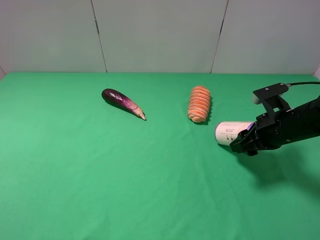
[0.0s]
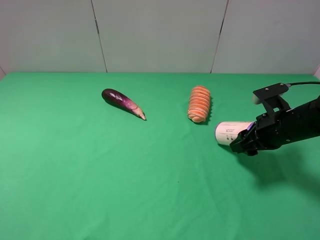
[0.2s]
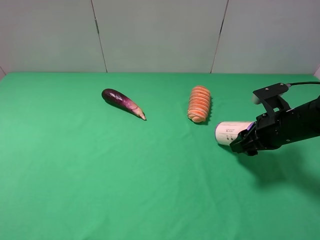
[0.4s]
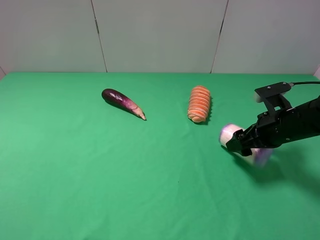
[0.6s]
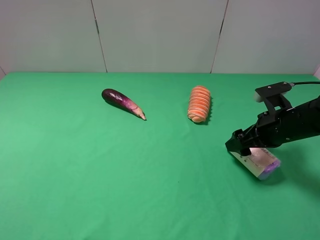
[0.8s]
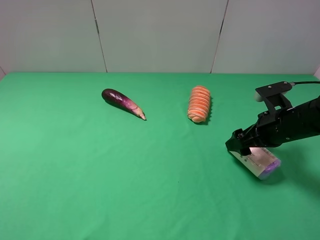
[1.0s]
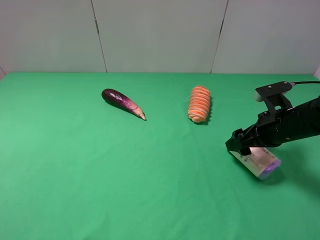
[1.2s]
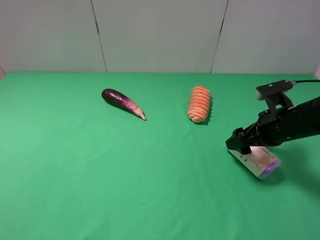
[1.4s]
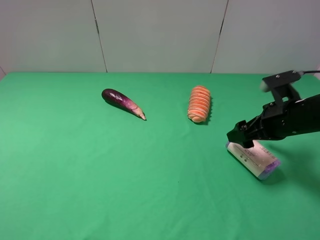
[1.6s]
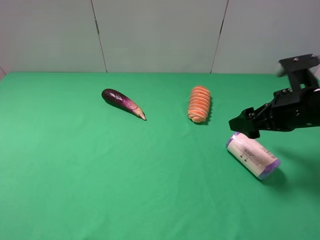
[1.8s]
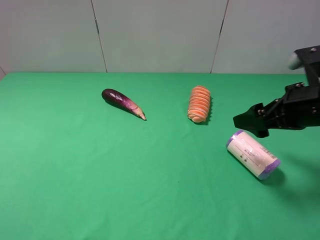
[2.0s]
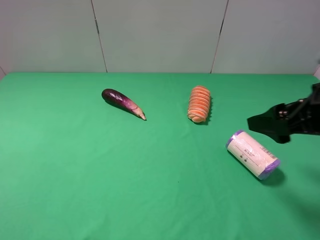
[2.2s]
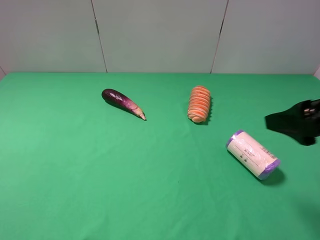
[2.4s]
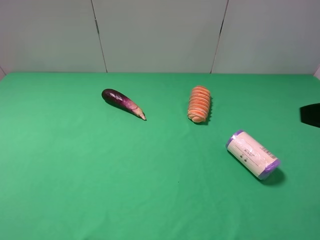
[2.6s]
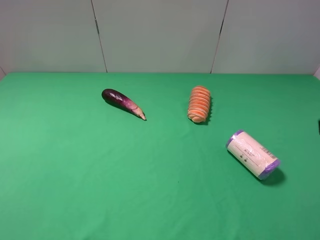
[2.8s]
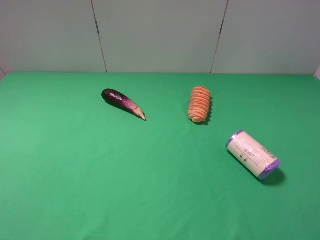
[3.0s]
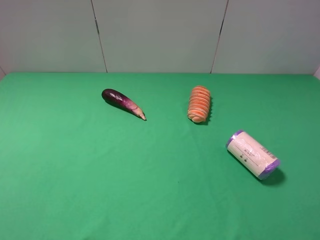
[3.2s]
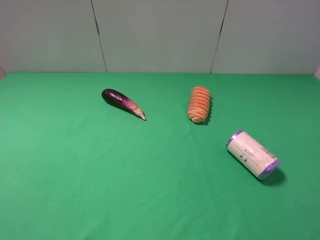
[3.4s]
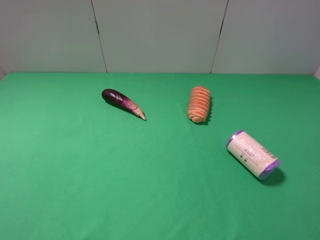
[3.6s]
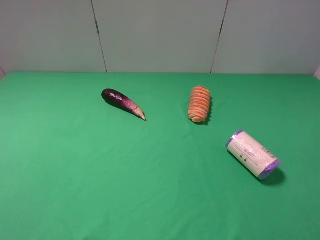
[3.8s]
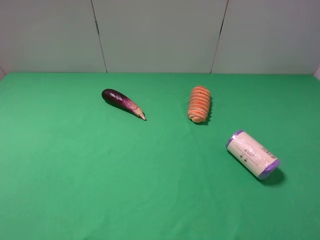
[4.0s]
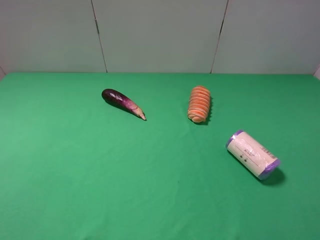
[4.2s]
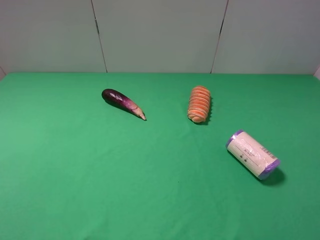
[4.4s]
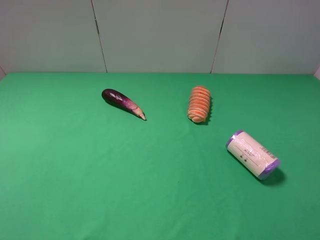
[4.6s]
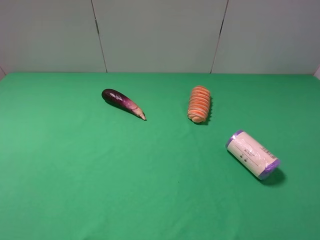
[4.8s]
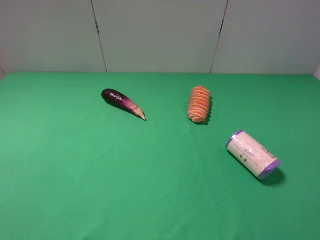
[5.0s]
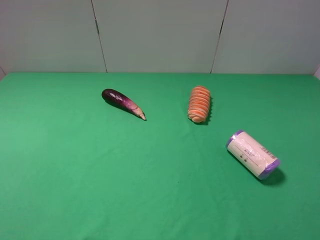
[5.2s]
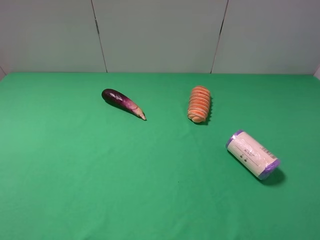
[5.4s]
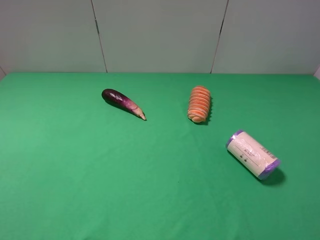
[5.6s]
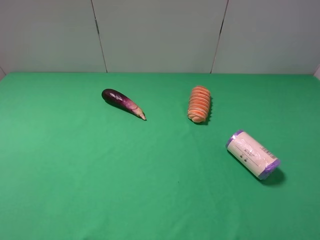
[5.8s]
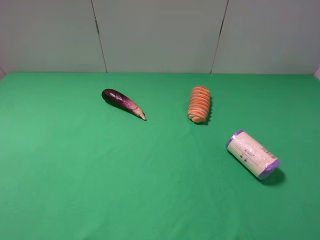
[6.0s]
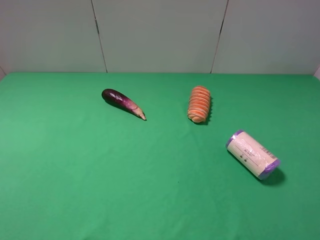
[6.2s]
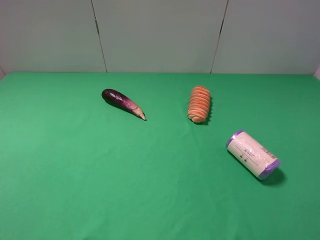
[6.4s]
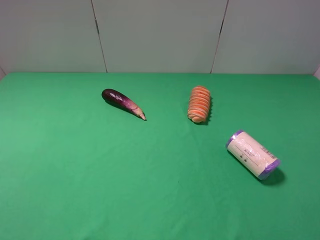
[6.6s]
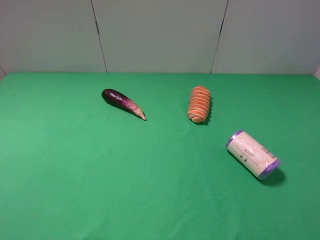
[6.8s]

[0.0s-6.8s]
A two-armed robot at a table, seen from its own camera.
Task of the whole recording: use the left gripper to pick up the item and transfer it from the left gripper to the right gripper.
Step, 0.0s to 2.2s: The right gripper places purple garbage bag on the right side of the table.
0.0s to 1.4s: The right gripper opens.
1.4s to 2.8s: The right gripper shifts approximately 25 cm backward and upward.
5.4s to 6.8s: Neither gripper changes place.

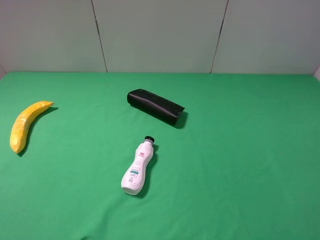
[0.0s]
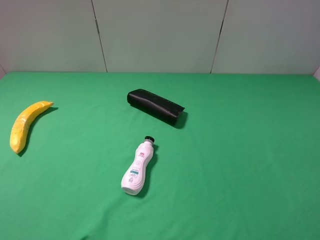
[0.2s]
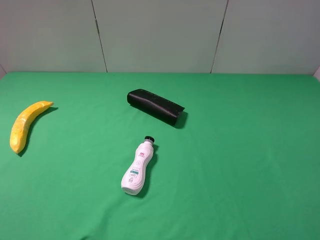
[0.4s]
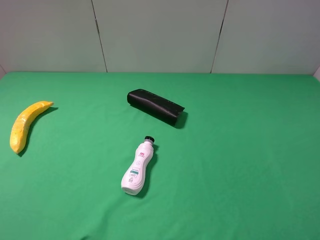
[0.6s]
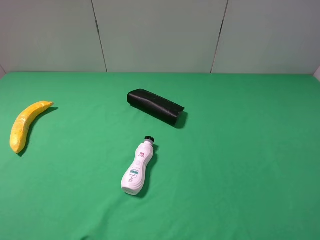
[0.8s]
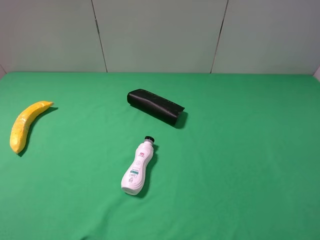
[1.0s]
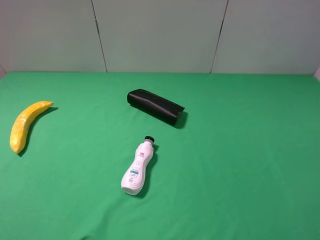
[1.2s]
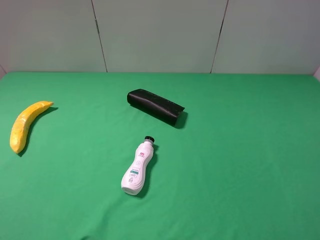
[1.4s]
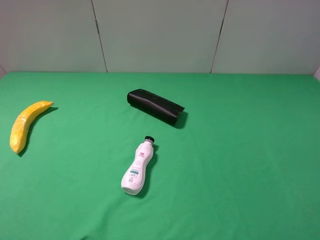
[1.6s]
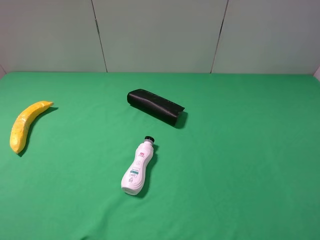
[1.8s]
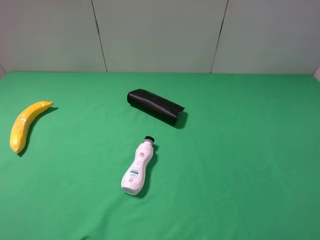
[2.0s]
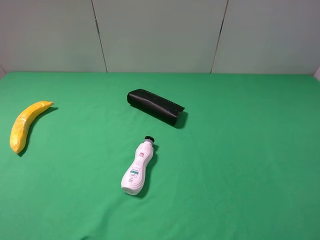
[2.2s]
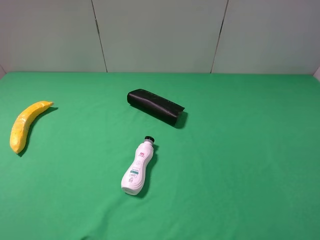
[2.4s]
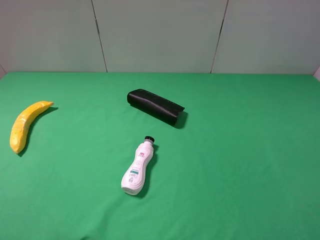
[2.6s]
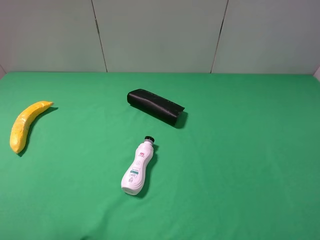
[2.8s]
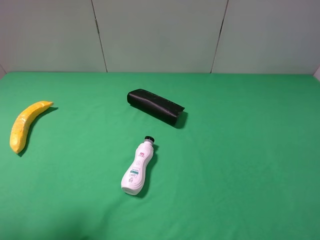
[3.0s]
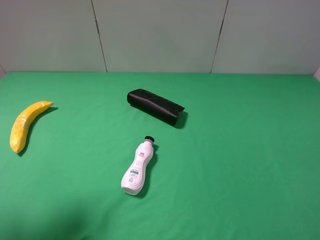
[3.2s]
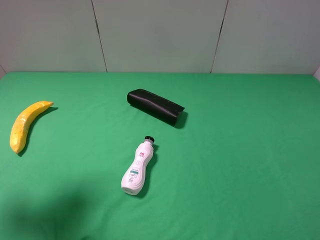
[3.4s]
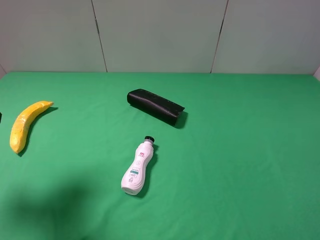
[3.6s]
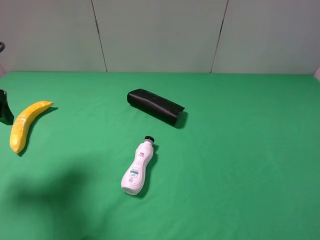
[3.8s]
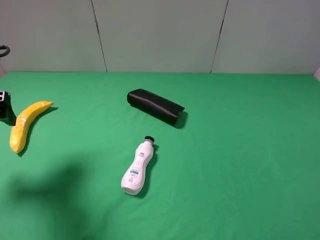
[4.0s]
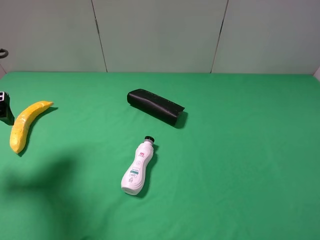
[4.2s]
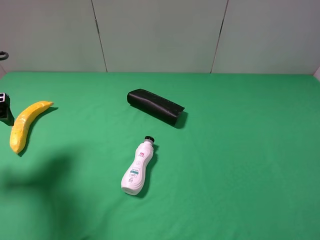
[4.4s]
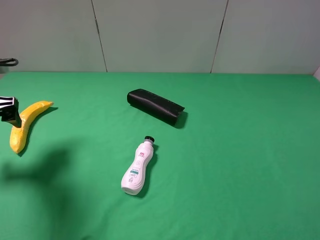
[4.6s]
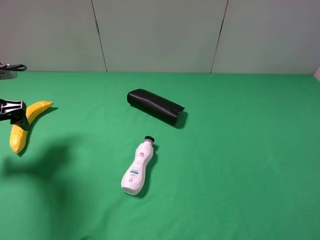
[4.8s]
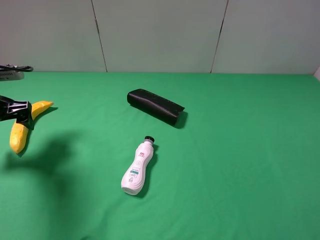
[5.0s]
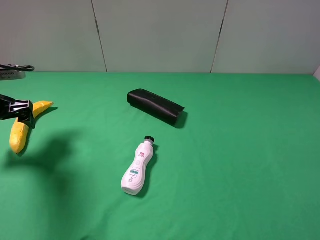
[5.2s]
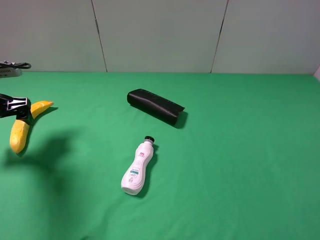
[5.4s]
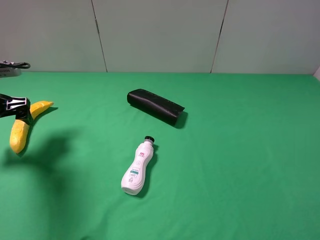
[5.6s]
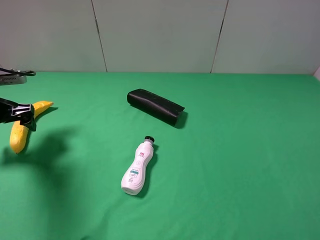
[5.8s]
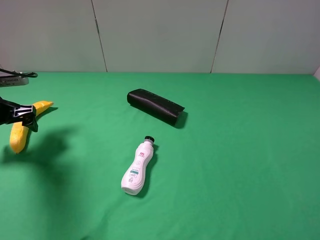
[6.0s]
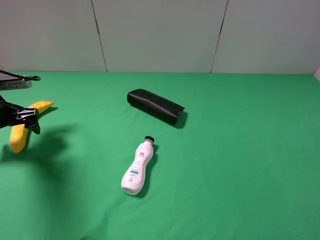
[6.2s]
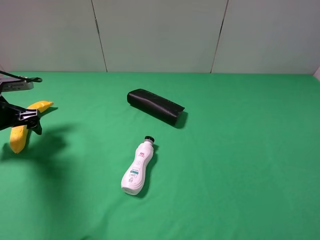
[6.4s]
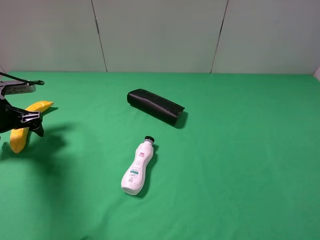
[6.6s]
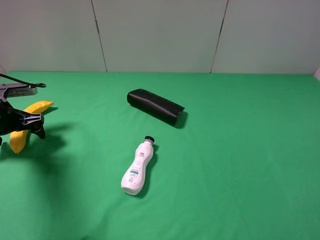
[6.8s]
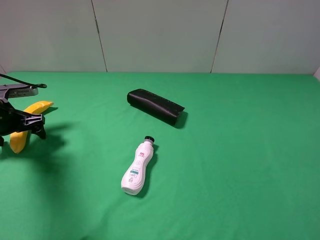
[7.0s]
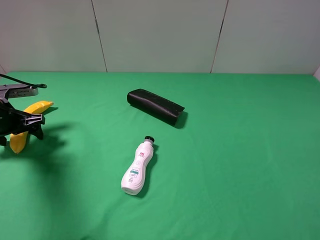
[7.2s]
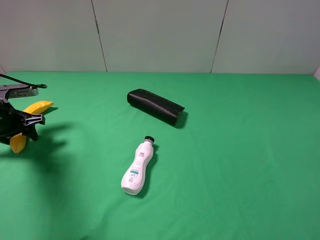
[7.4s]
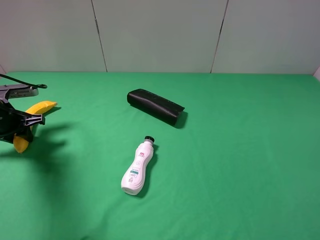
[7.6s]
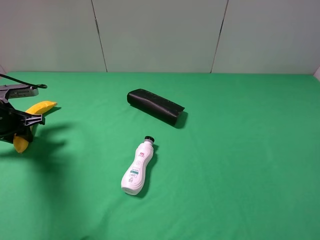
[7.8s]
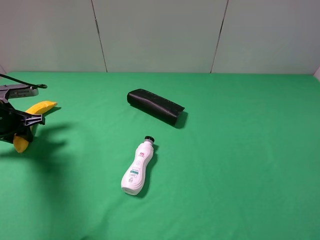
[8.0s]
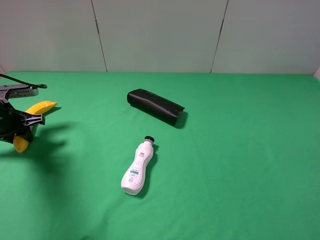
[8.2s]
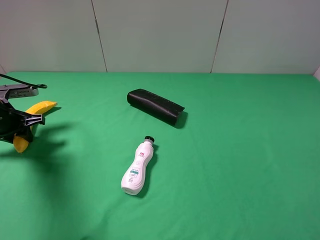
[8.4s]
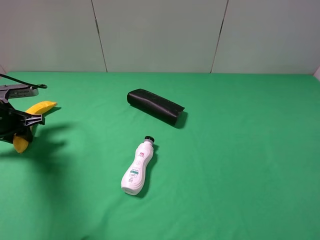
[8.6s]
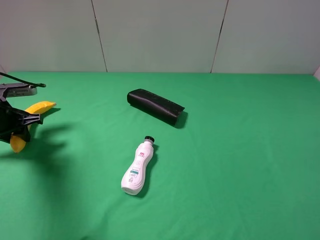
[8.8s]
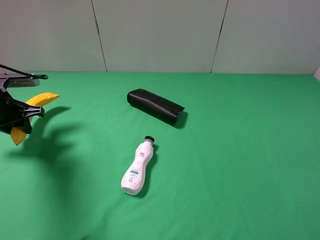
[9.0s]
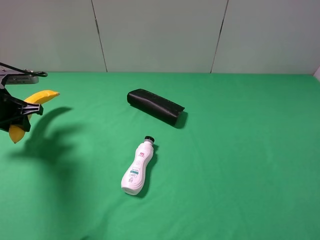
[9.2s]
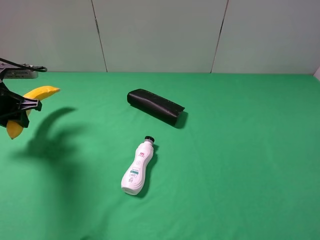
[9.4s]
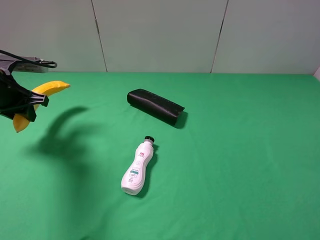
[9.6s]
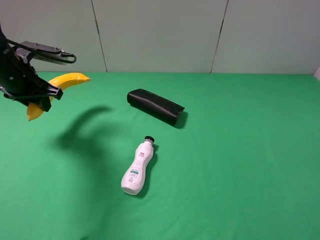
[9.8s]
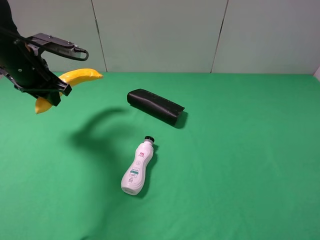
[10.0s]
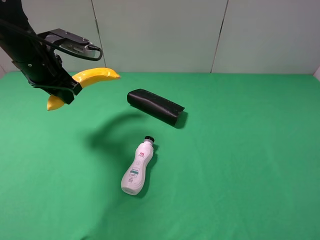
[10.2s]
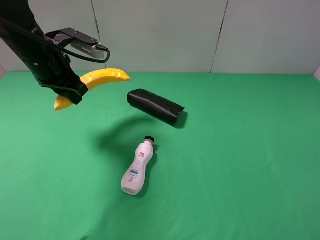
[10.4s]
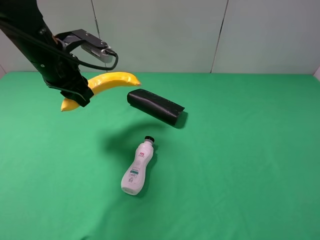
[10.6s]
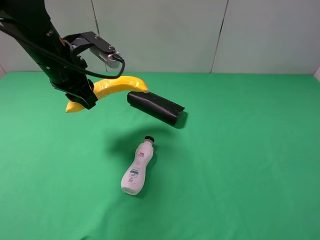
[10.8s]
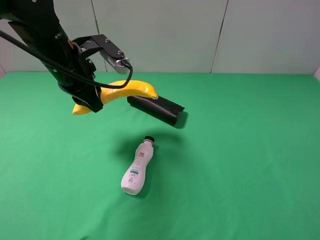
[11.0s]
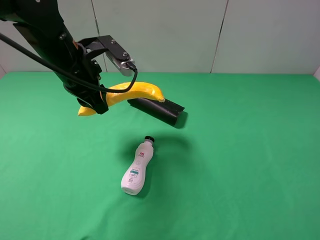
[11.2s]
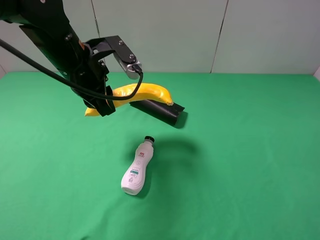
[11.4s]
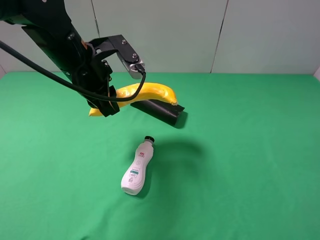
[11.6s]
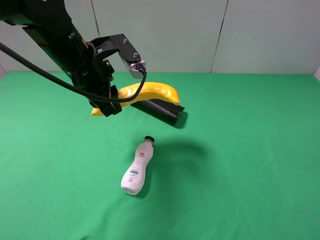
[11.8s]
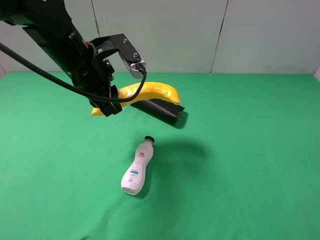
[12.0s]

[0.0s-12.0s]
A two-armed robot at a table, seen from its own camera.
Task of the whole recording: use the left gripper to pick up the item and transfer it from the left gripper to the right gripper.
Step, 0.0s to 8.4s: Use the left gripper to grab the banana on the left side of the table.
0.0s to 1.6s: Both grippers stay about where they are.
1.6s to 3.0s: The left gripper goes about 10 cm forward.
3.0s to 4.4s: The left gripper goes about 15 cm forward and downward.
4.4s to 6.0s: The left gripper shifts some 10 cm downward and forward.
6.0s to 7.6s: The left gripper closes.
7.6s to 9.0s: The grippers stay close to where they were, moving slightly.
9.0s to 10.4s: The left gripper moves to the right and upward, roughly 15 cm.
10.4s to 12.0s: The left gripper travels to the right by about 10 cm.

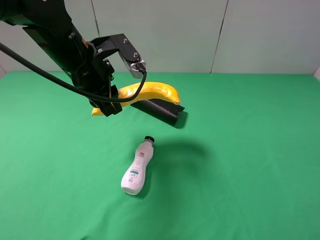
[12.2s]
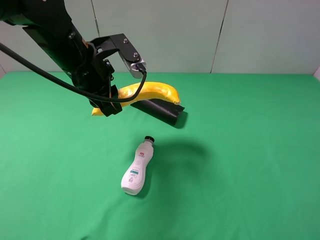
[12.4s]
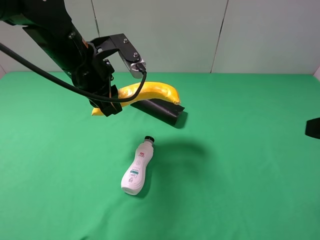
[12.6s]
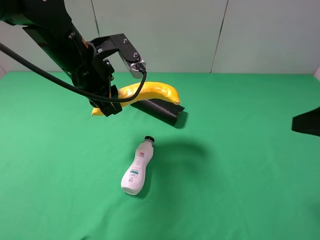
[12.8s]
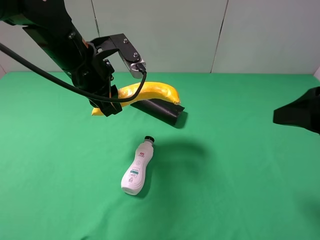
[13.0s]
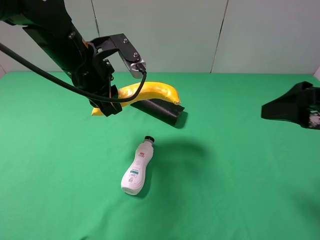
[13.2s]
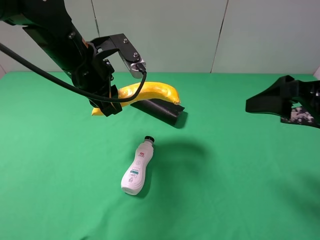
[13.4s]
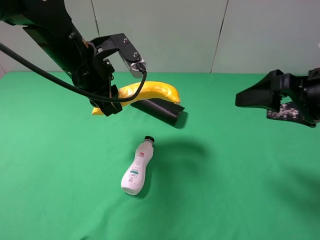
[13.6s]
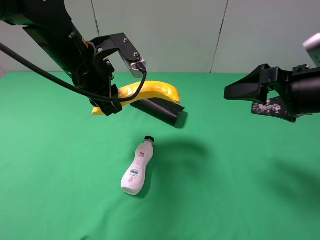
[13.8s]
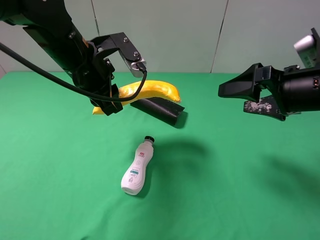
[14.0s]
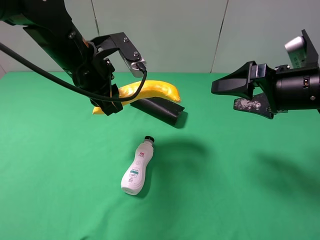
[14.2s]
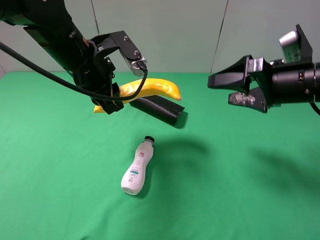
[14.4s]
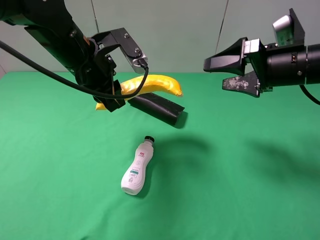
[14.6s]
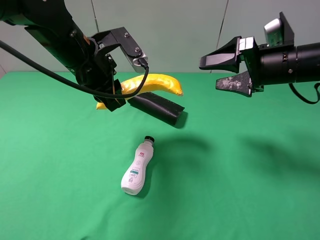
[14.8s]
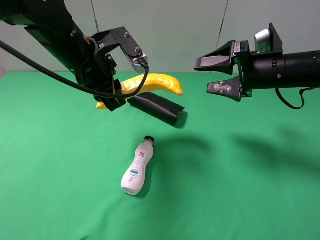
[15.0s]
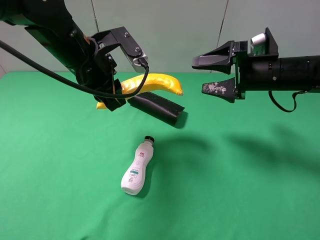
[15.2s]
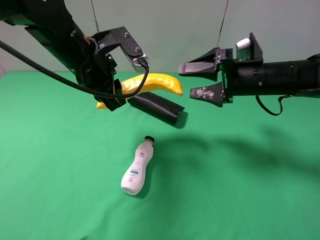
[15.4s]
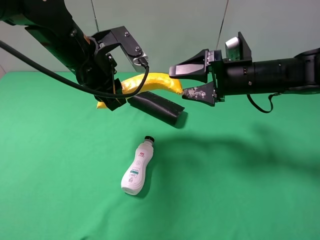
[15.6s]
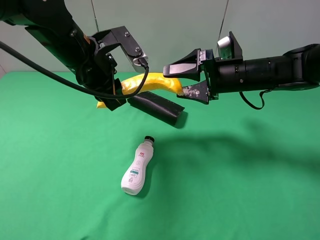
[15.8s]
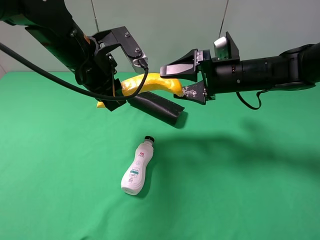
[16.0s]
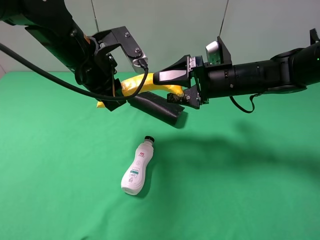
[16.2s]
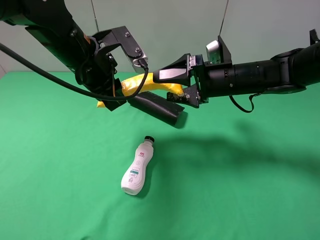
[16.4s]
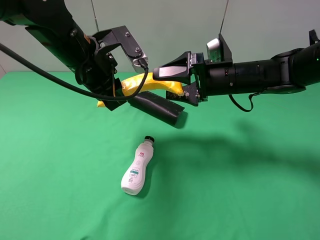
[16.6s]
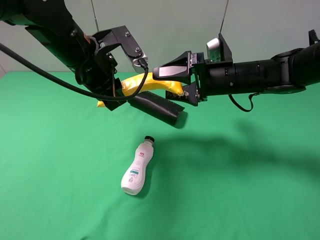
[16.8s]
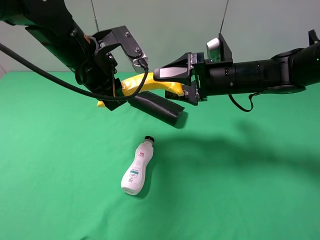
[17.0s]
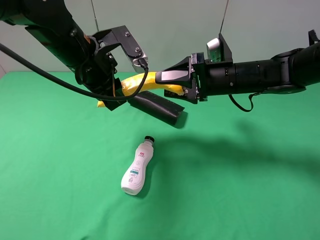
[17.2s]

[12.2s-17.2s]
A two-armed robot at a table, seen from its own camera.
Task of the whole recording: use the left gripper to pick up the item and transfer it from the left gripper to the right gripper.
12.2s to 13.8s: The right gripper moves forward, about 15 cm.
13.8s to 15.6s: The right gripper shifts approximately 15 cm forward, to the left and downward.
15.6s to 17.2s: The right gripper closes up.
